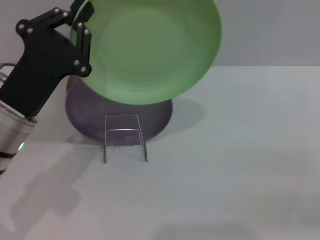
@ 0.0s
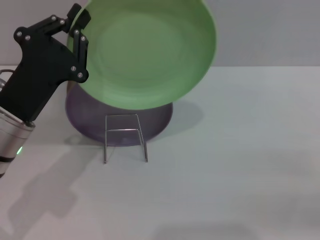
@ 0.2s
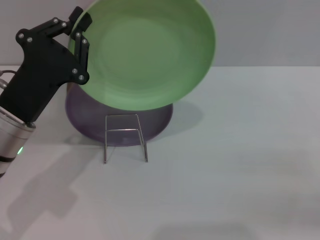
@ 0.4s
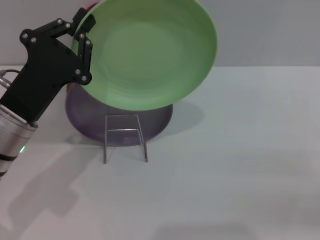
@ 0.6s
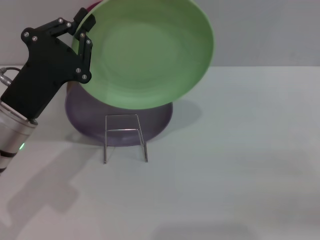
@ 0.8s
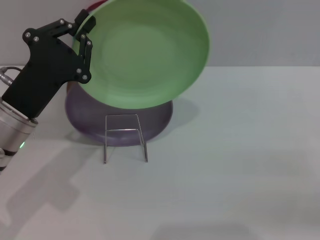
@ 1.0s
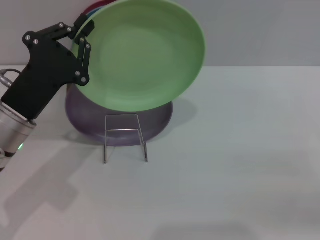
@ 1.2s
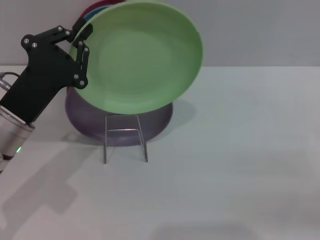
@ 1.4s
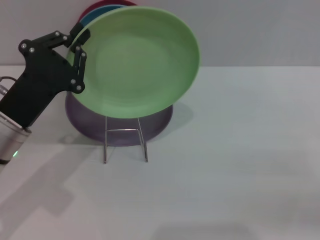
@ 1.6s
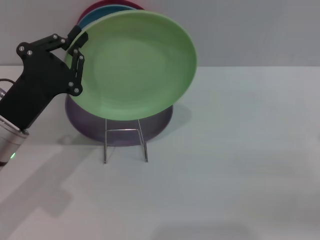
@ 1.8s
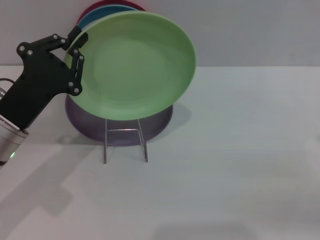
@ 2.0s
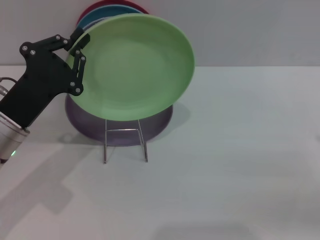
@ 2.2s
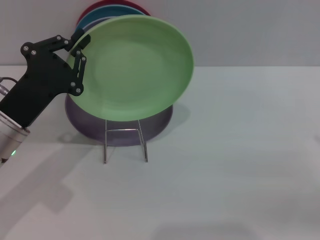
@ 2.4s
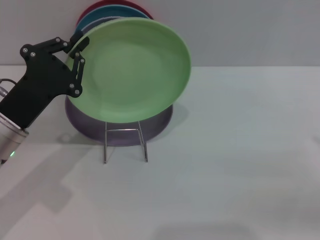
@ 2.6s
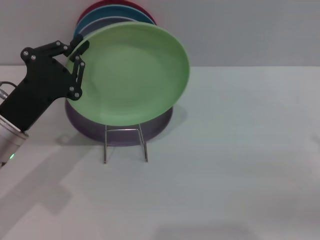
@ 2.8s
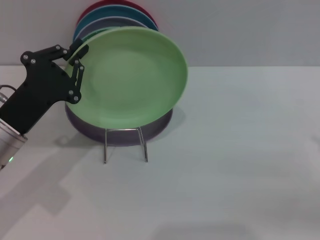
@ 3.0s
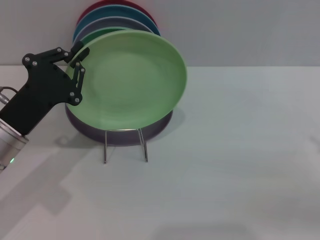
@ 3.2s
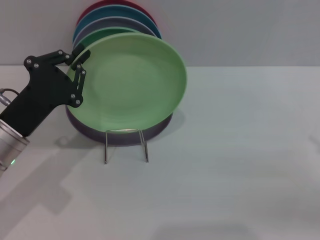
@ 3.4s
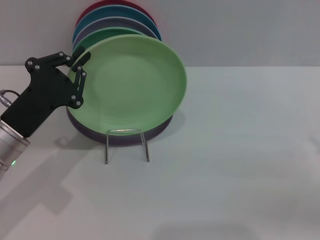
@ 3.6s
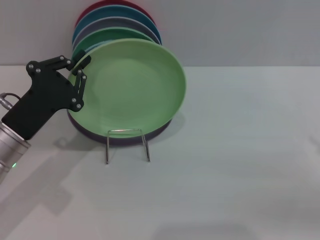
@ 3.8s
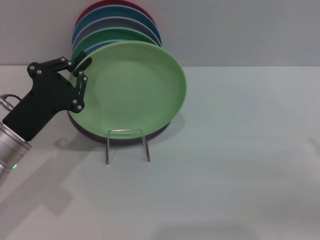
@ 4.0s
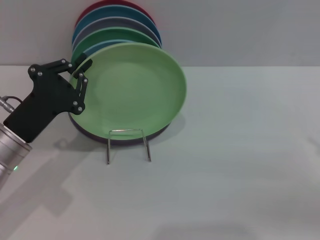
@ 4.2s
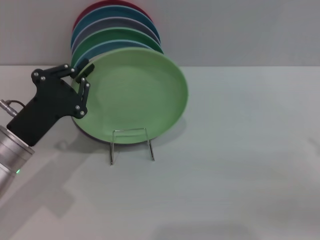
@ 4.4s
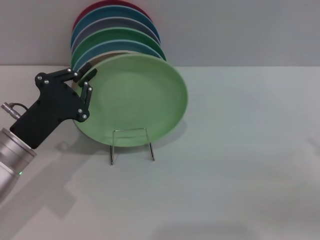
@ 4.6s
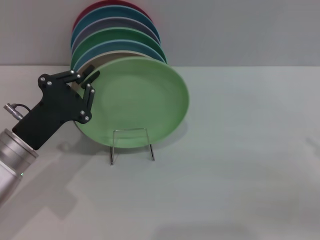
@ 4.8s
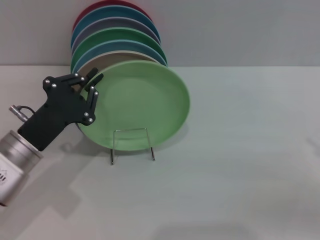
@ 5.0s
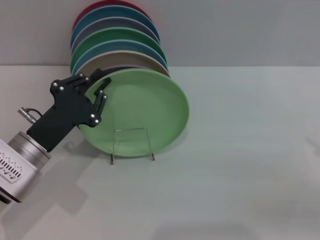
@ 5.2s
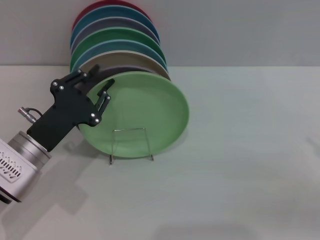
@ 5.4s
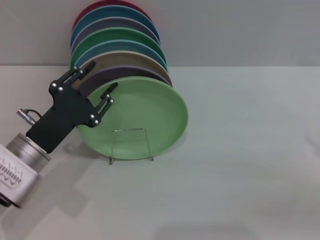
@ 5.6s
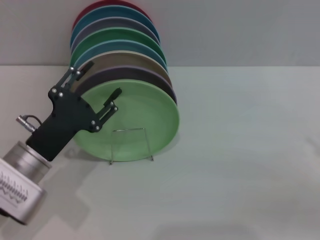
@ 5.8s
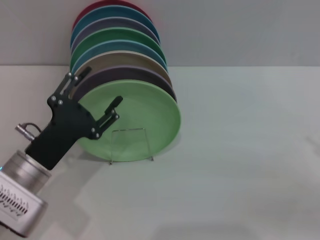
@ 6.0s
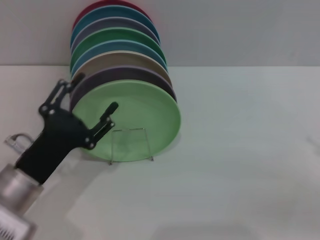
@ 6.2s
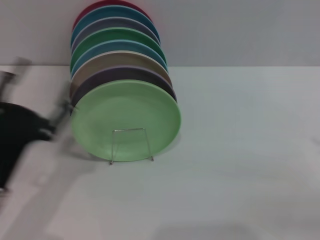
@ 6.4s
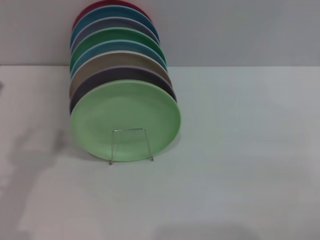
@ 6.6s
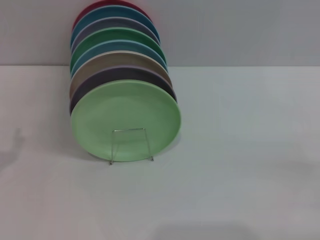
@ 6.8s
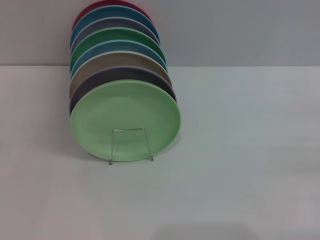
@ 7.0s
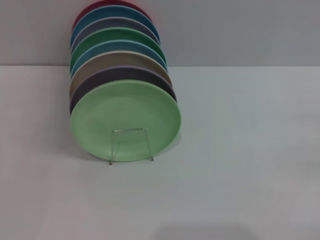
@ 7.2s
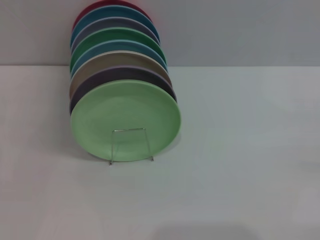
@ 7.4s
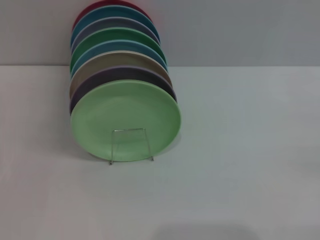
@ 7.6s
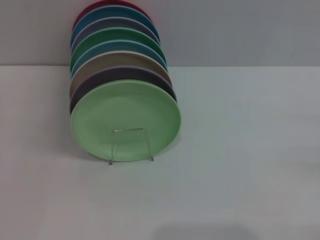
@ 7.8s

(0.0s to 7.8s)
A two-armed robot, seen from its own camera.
Task of the whole recording: Grip the plate with one hand, pass it to the other, then set it on the shelf.
Step, 0.0s - 6.0s: Place the plate on the shelf with the left gripper.
0.0s - 3.2s: The grippers move only a little.
3.2s - 4.6s: There are only small adjustments of the grippers.
4.6s - 6.2s: The left gripper changes place by approximately 5 cm, and opens.
6.2s - 7.8s: The left gripper goes some 15 cm to the left.
